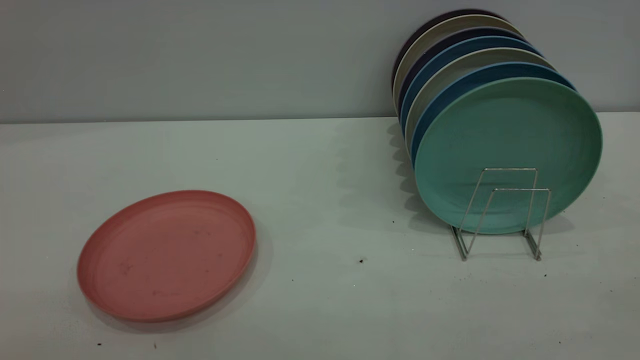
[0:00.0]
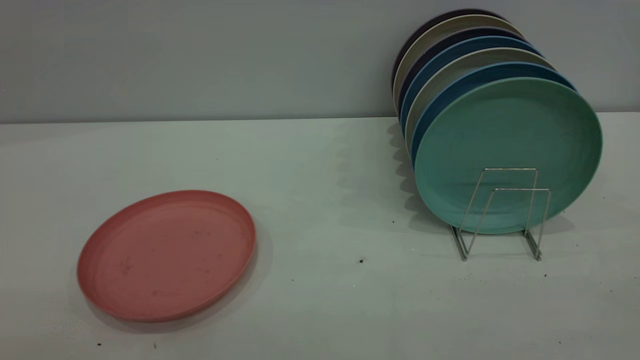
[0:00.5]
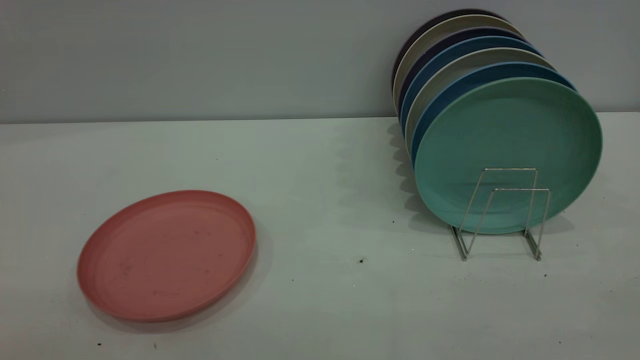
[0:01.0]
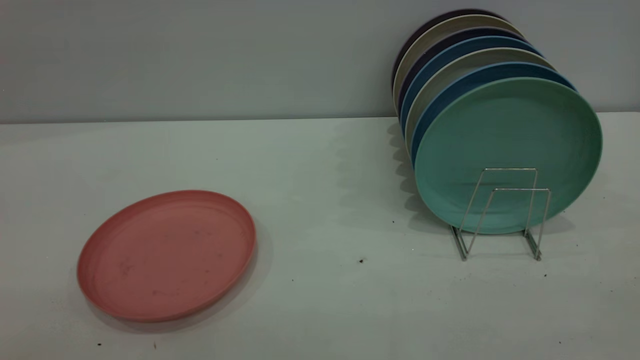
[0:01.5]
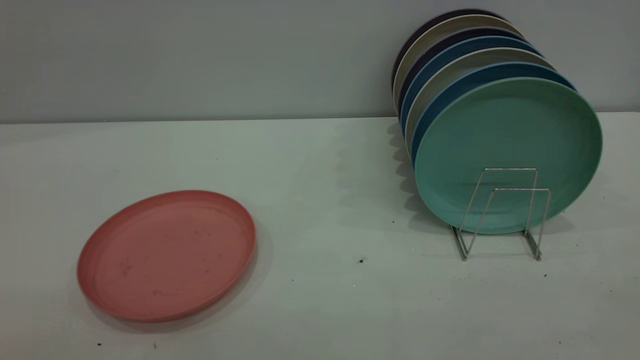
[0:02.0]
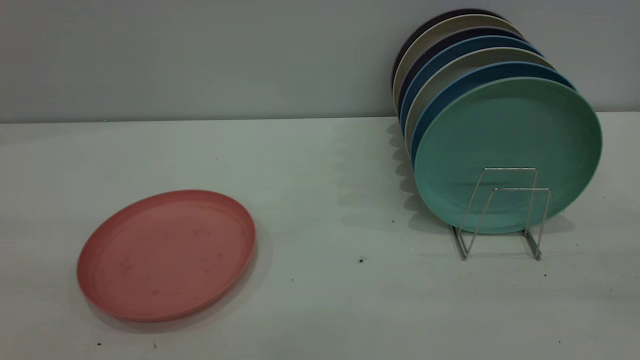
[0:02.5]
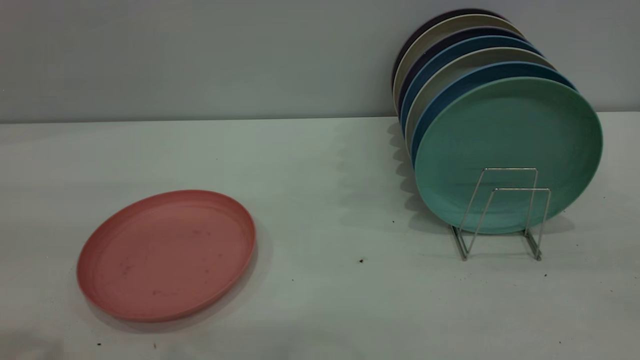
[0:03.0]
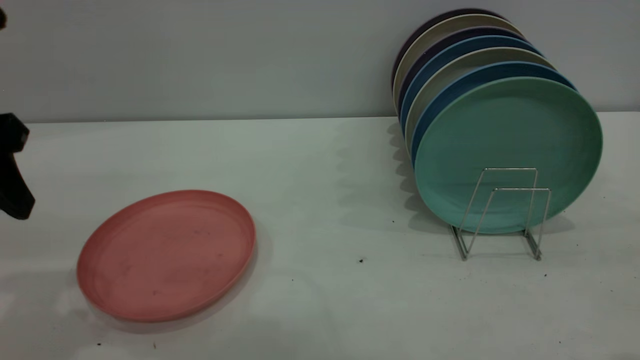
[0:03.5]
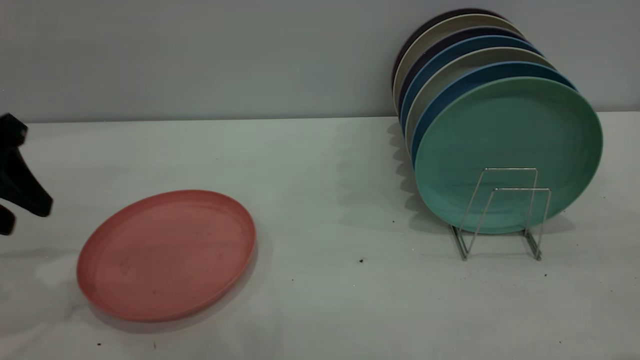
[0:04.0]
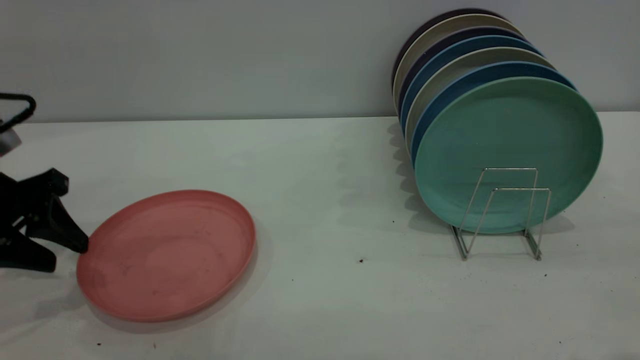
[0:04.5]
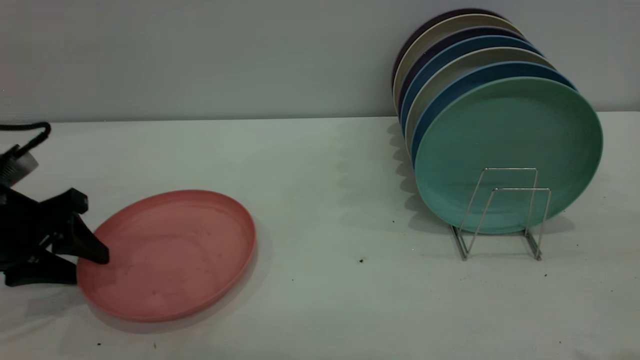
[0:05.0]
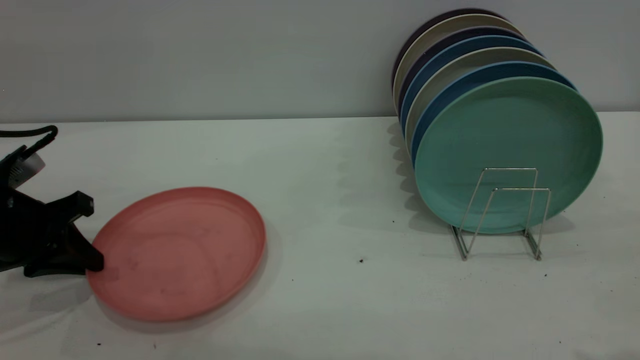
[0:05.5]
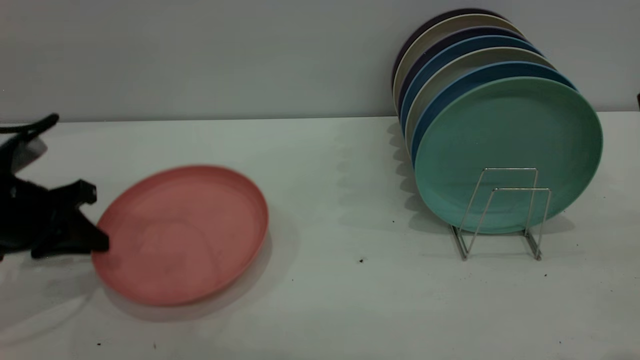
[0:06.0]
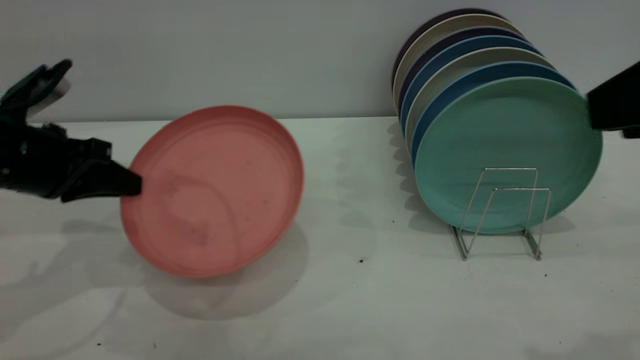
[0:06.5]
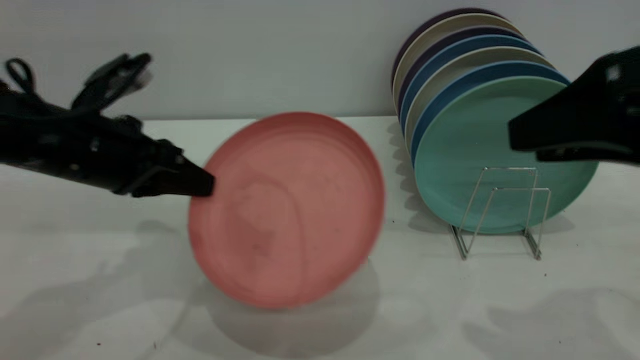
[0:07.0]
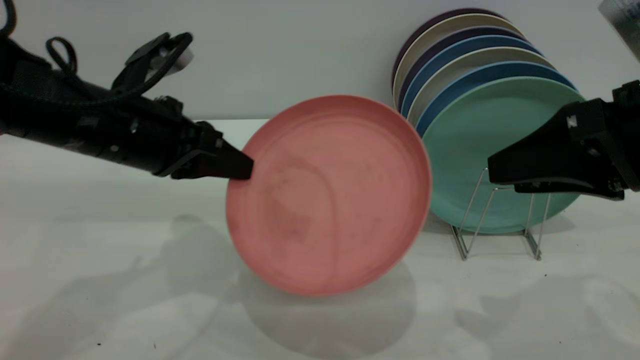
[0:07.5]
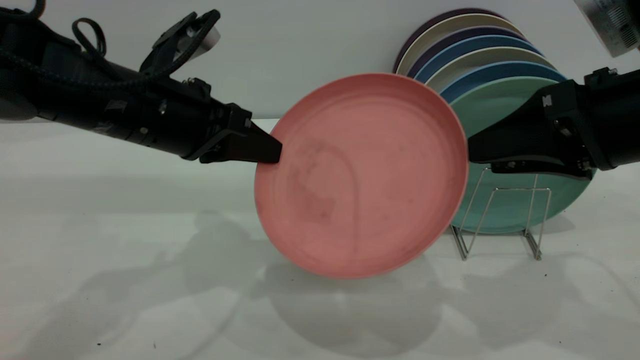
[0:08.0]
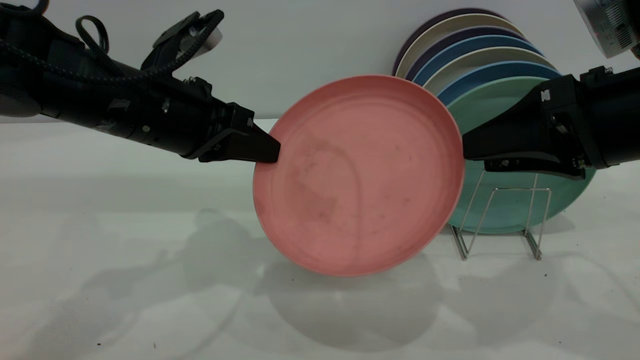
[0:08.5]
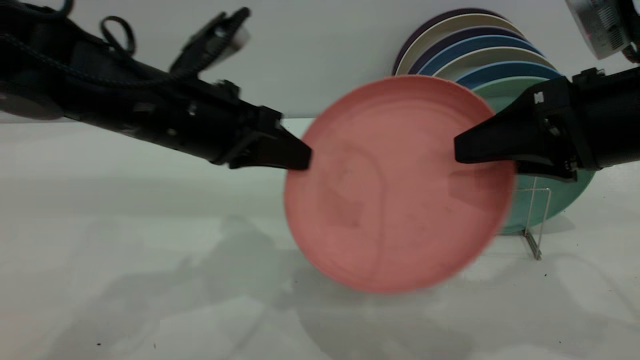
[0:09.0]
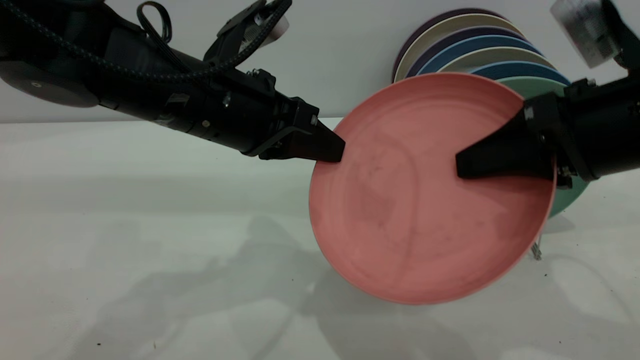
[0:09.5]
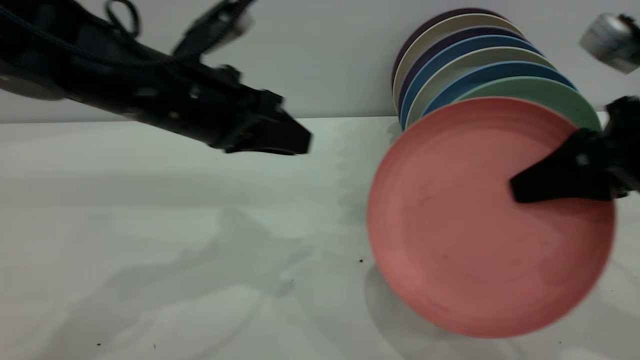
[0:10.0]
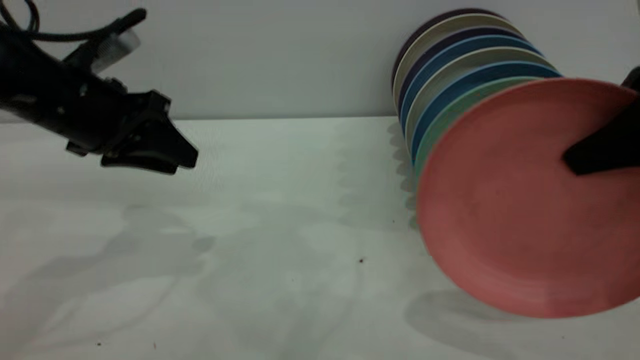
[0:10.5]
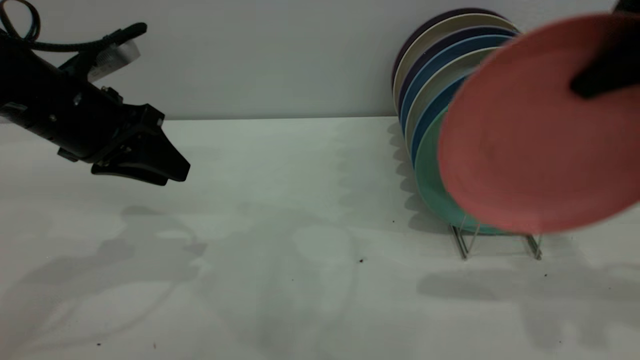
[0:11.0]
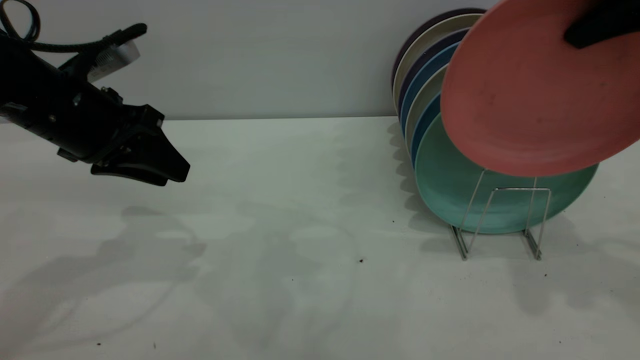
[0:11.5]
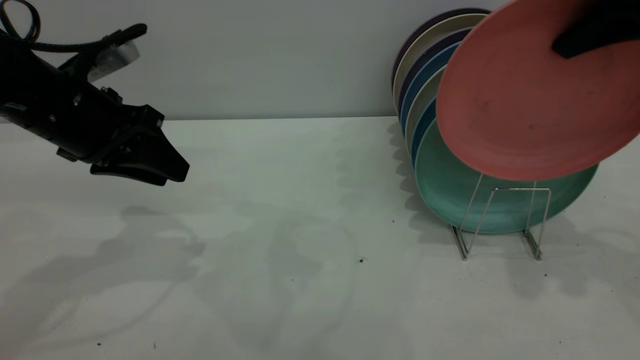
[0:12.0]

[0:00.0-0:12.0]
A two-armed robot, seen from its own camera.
Task of the whole recording: put the plate on the plate rack.
Step, 0:00.0 to 0:06.0: Pick up the plate with the left gripper.
Step, 0:06.5 to 0:09.5: Pass the plate from the left gripper to the right gripper.
0:00.0 to 0:02.0: Both grippers stay put.
0:02.0 to 0:04.0: The left gripper is displaced forward and downward by about 35 cm.
0:04.0 to 0:06.0: The left gripper is displaced downward by some 10 cm, and closes.
0:06.0 to 0:08.0: The right gripper goes about 15 cm forward and downward, while the left gripper moves to the right and upward, approximately 20 cm.
0:08.0 to 0:10.0: The left gripper opens its fingers. Meanwhile the right gripper closes its fingers.
0:10.0 to 0:12.0: The left gripper is displaced to the left by some 10 cm, while the right gripper shifts some 15 cm upward and forward.

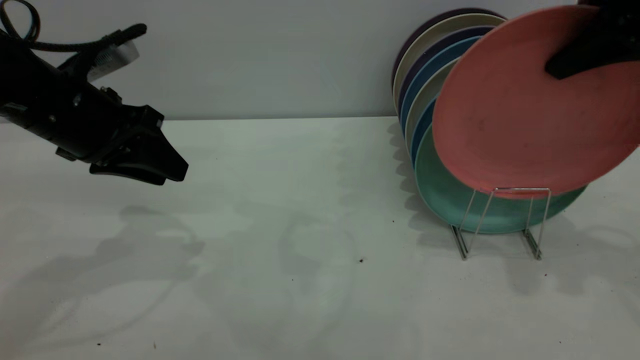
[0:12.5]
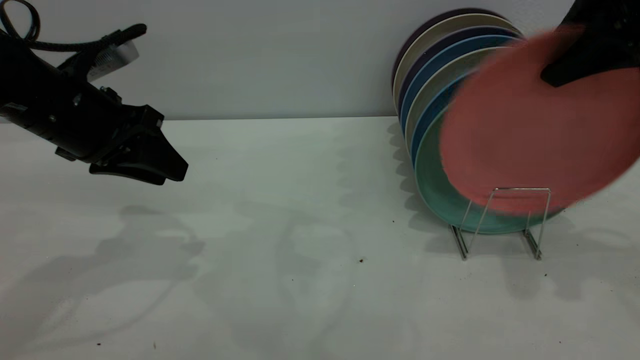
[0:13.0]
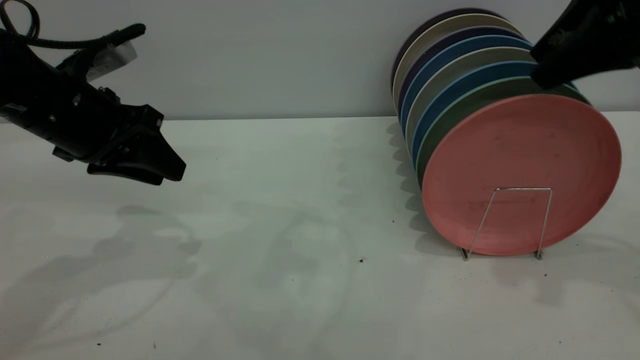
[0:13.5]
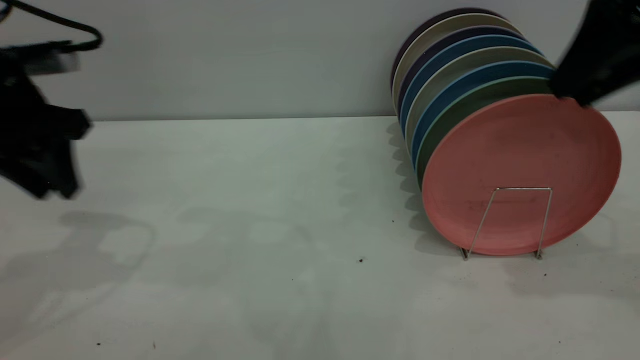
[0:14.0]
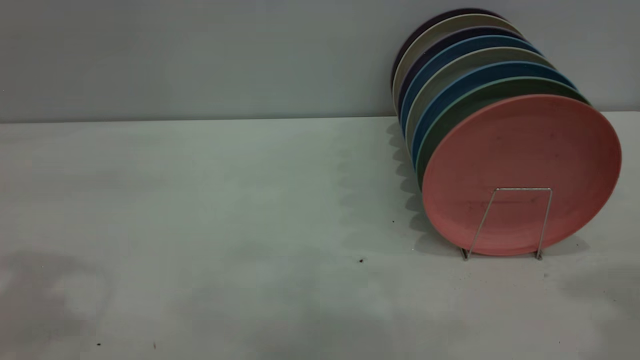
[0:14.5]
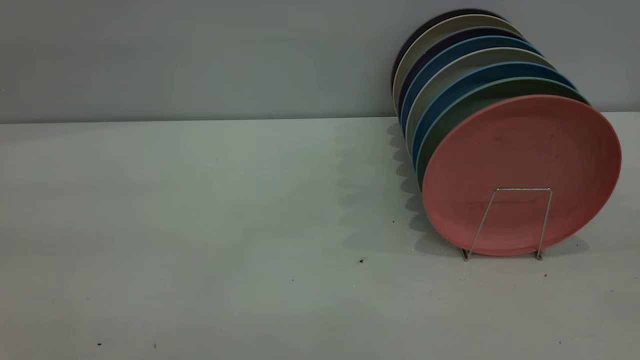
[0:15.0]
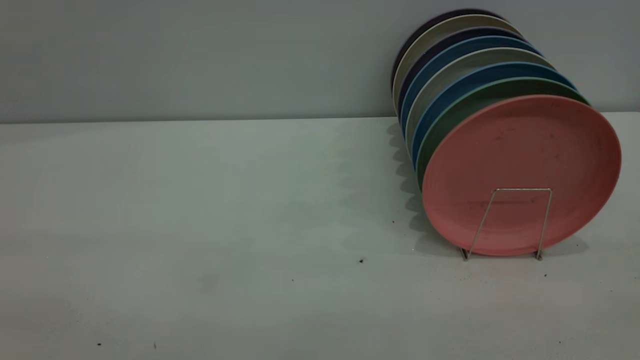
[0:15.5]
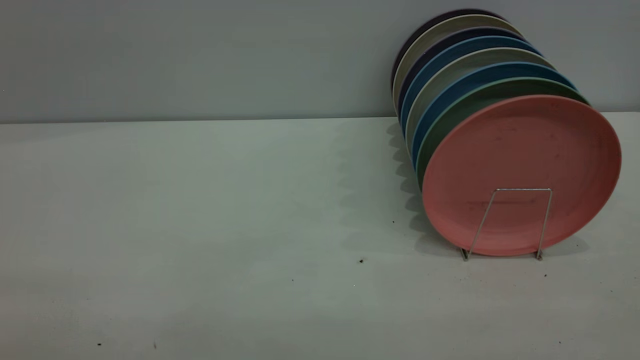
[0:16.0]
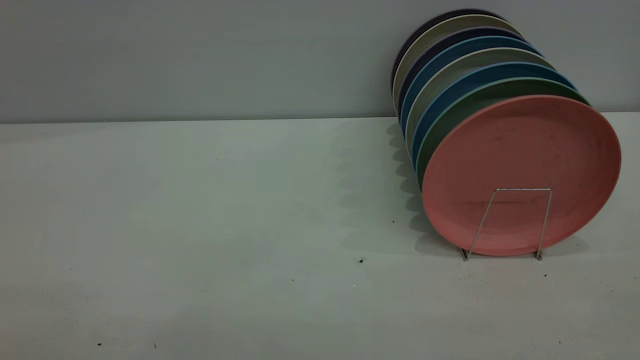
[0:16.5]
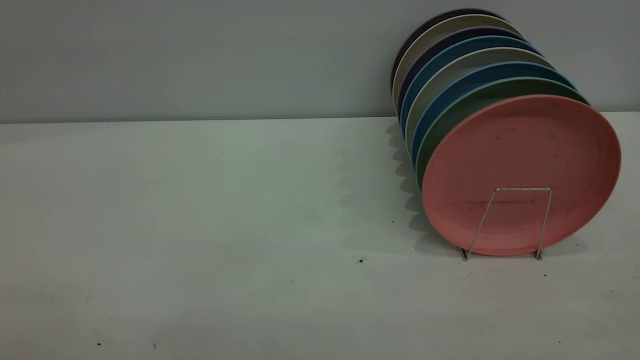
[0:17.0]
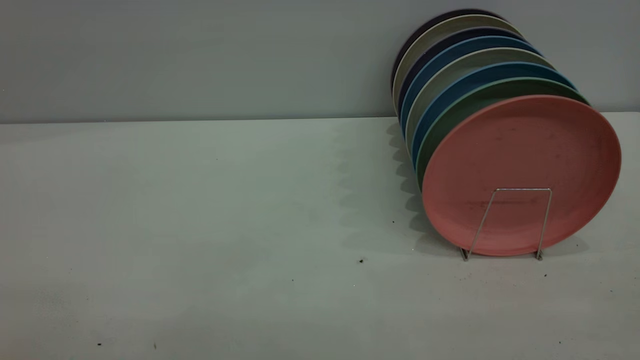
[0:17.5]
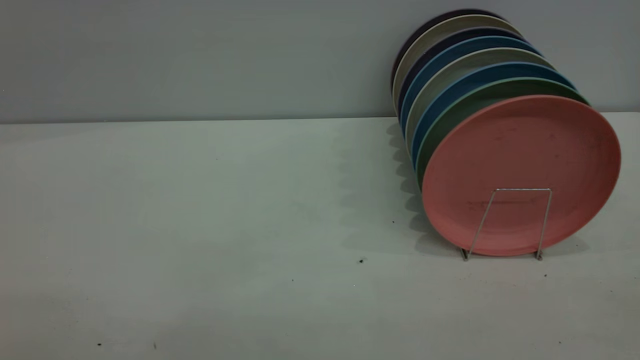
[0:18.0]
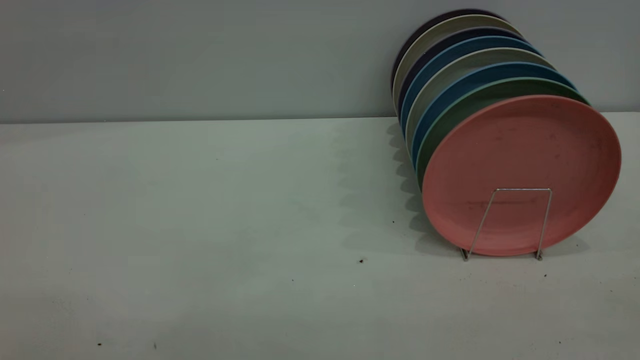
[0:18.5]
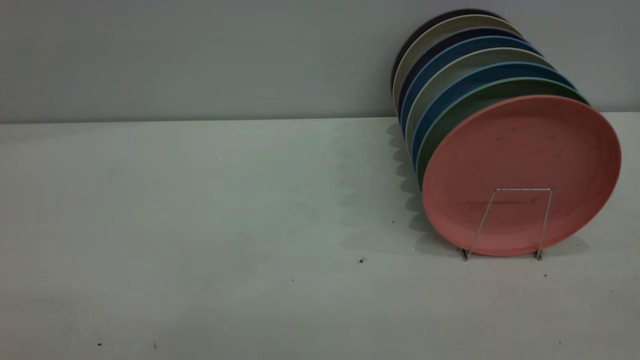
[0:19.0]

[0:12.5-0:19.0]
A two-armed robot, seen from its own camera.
Task of the whole recording: put the plate on the plate rack.
0:12.5 to 0:14.5: The left gripper goes some 20 cm upward and backward; the right gripper heads backward and upward, covering some 15 cm, and opens.
